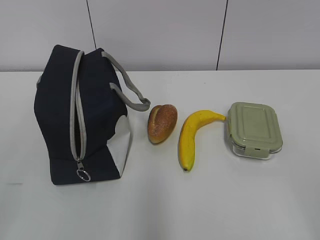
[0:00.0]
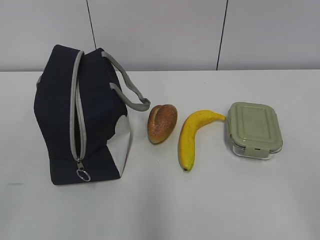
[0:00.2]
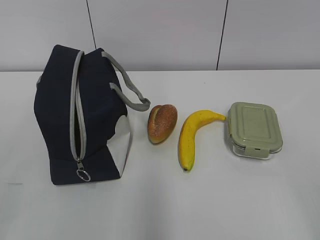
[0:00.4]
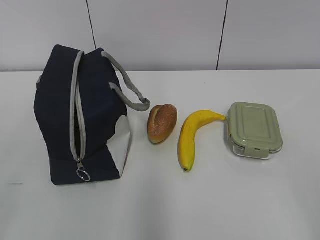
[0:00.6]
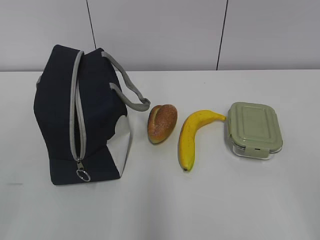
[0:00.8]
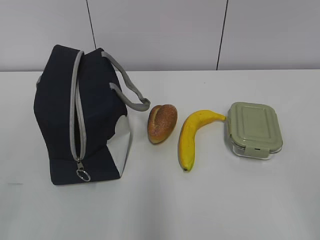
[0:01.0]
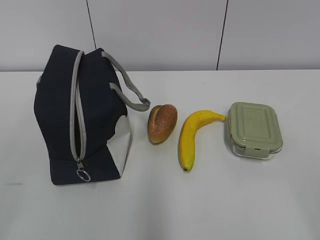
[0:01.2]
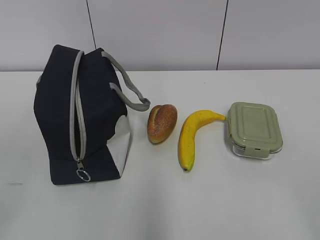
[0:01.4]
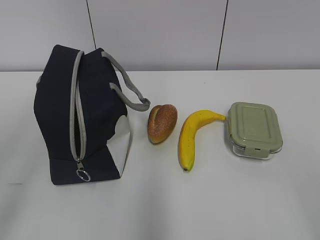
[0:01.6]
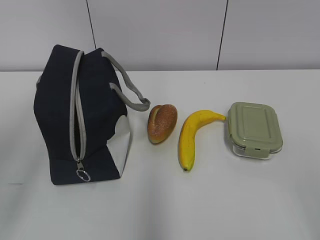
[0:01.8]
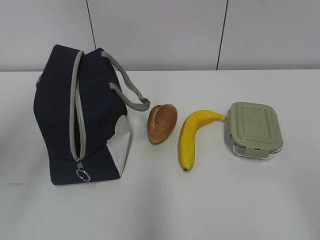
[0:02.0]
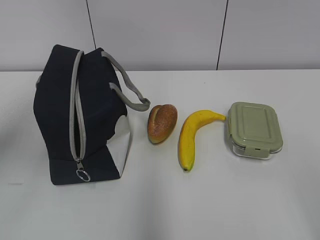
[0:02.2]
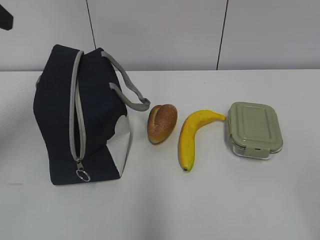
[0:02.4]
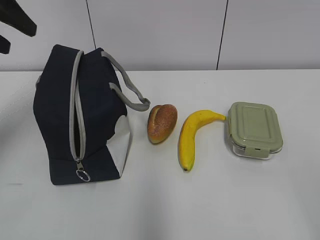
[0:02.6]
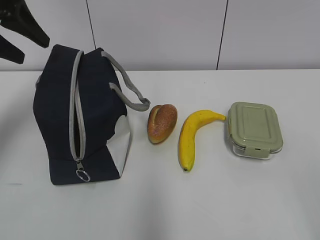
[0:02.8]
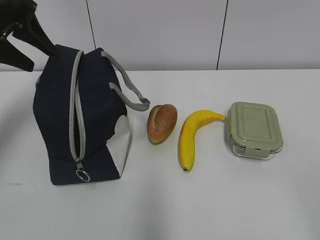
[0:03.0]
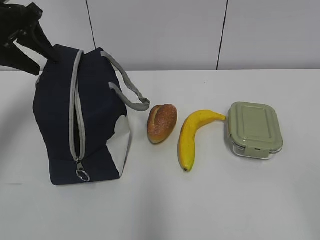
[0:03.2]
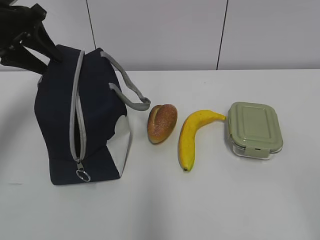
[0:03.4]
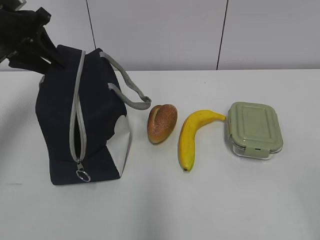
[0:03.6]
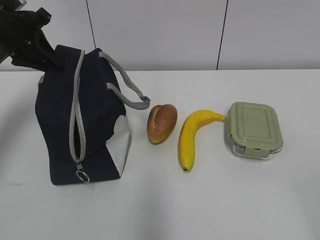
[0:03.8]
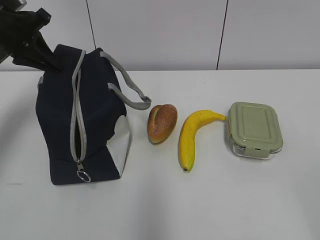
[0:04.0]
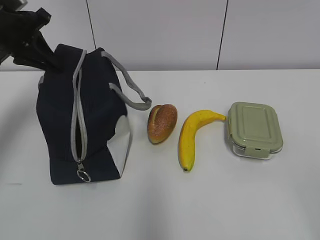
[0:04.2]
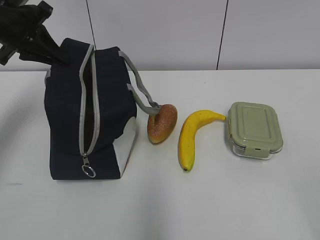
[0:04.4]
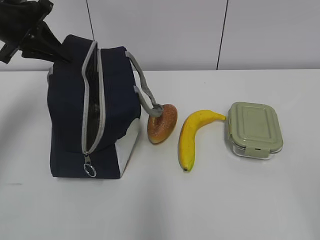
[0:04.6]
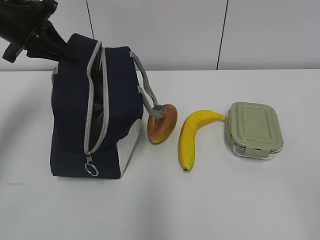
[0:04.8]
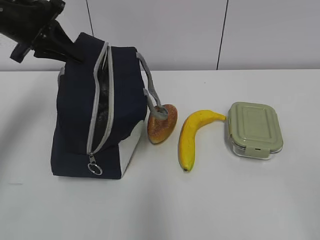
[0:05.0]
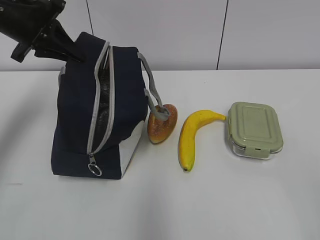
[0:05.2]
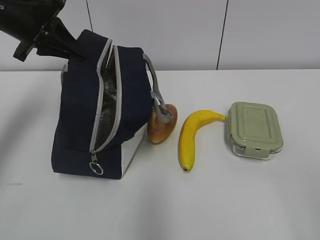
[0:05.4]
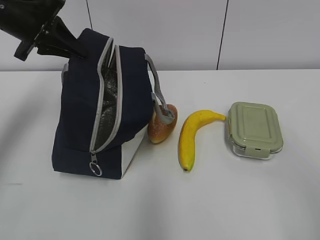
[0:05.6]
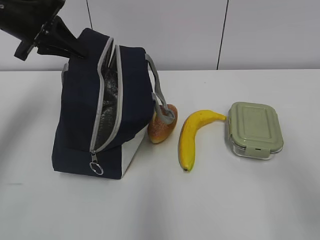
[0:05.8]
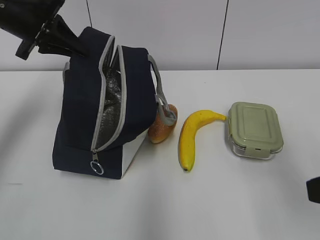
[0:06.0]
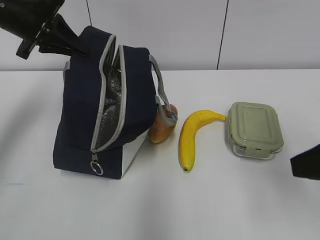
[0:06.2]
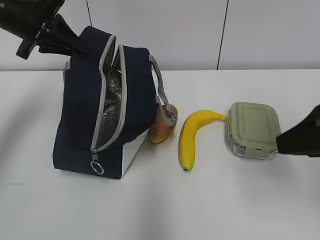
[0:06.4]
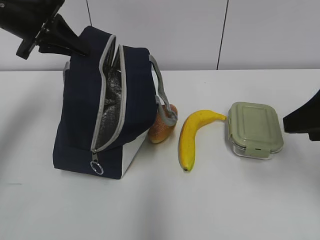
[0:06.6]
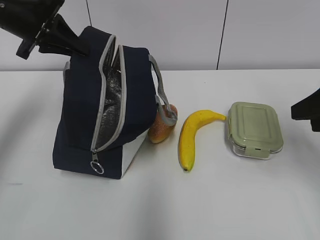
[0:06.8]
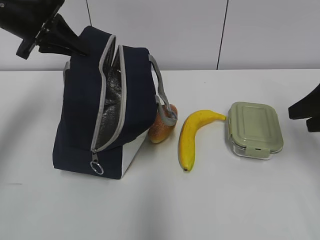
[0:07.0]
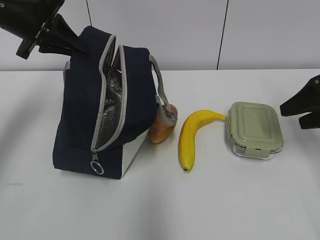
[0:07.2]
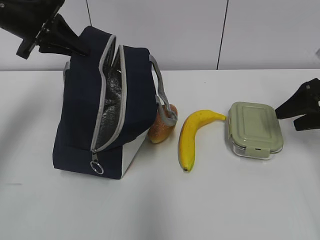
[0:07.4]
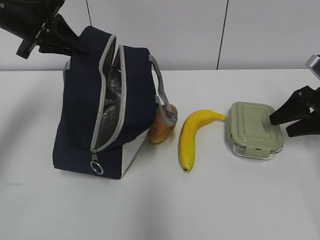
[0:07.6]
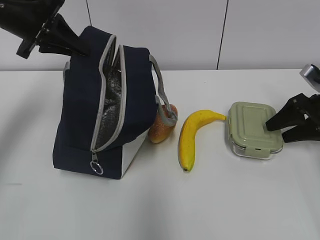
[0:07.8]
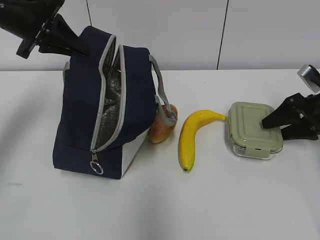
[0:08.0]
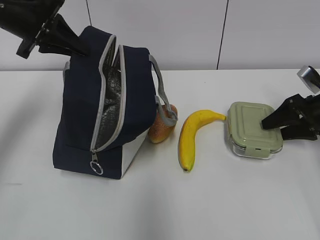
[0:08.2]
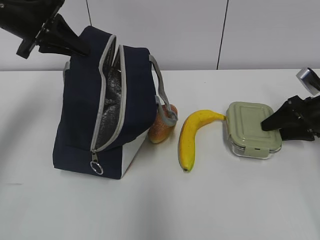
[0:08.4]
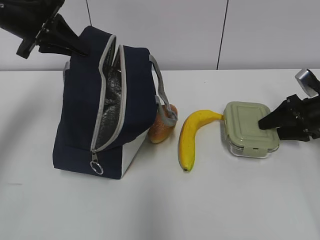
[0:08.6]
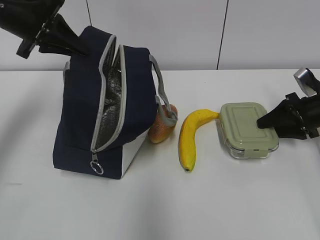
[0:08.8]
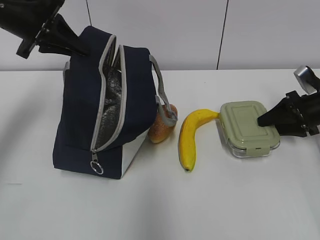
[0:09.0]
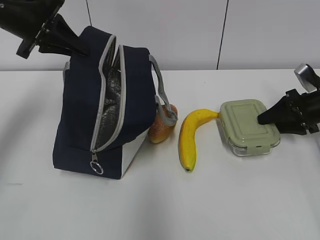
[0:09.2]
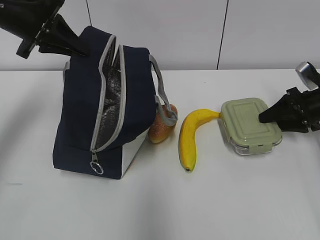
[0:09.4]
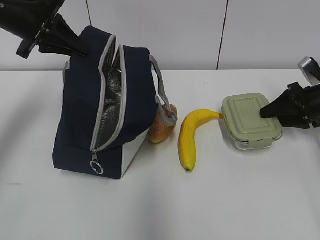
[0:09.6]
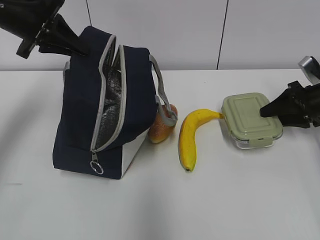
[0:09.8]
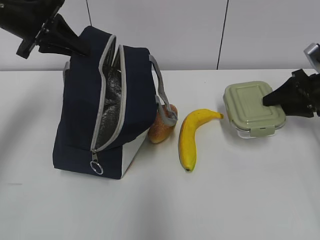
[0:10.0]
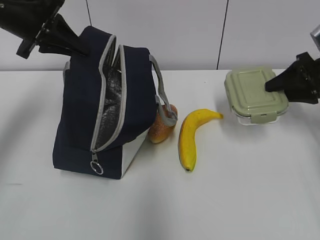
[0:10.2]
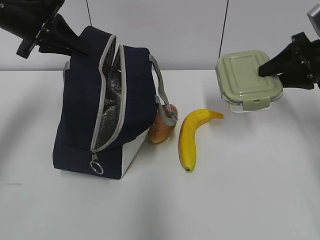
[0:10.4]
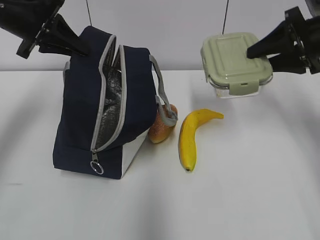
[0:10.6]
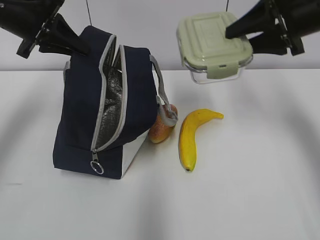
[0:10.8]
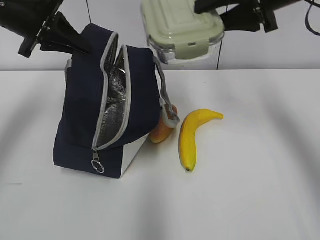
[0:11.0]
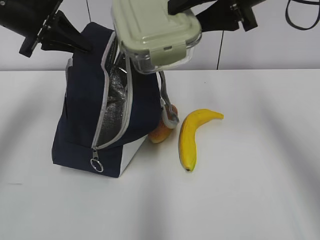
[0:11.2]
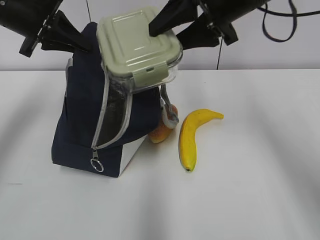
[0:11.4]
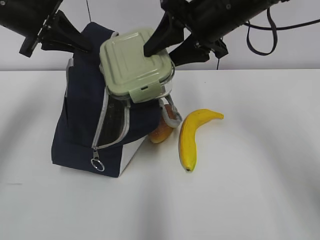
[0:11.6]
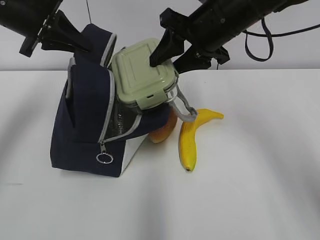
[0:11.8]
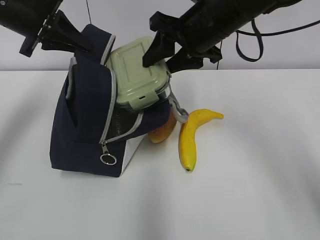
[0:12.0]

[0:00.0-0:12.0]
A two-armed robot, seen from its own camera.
0:01.6 to 0:03.0: The left gripper heads forward, covering some 35 cm.
0:03.0 to 0:04.4: The left gripper closes.
0:04.4 to 0:06.0: The right gripper moves forward, approximately 15 cm.
0:06.0 to 0:07.6: The right gripper travels forward, downward and to the right by some 30 cm.
0:07.6 to 0:09.0: There are only small adjustments of the grippers.
0:09.0 to 0:10.4: The right gripper shifts roughly 10 cm upward.
0:10.4 to 0:12.0: The right gripper is displaced to the left by roughly 20 cm.

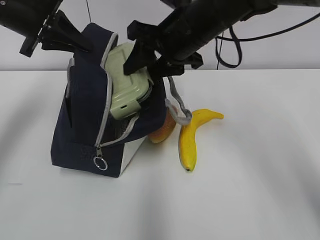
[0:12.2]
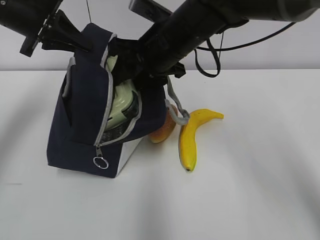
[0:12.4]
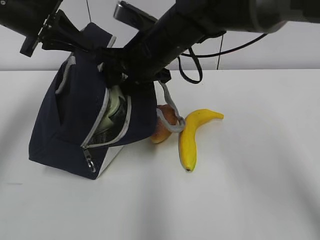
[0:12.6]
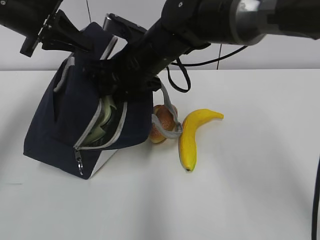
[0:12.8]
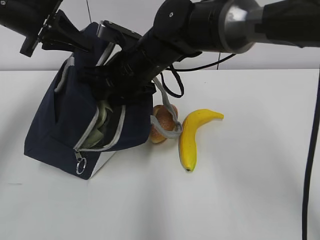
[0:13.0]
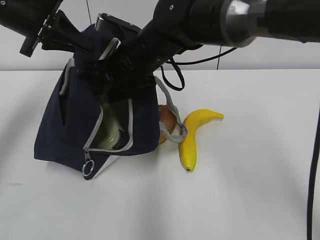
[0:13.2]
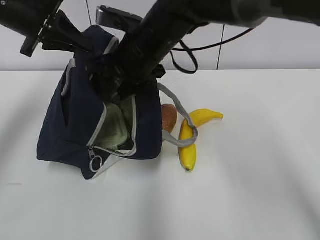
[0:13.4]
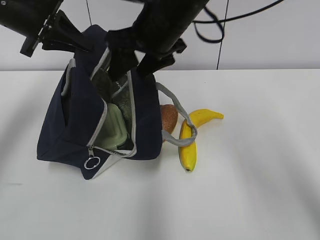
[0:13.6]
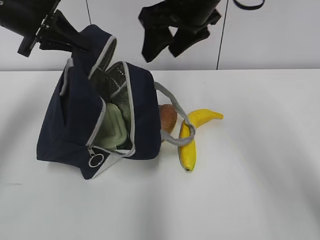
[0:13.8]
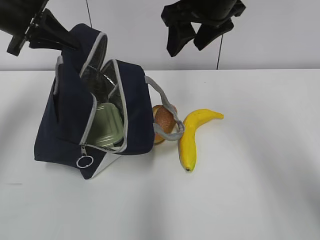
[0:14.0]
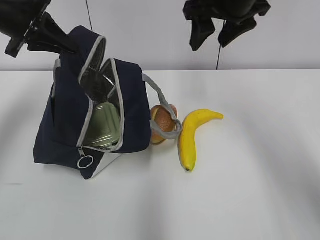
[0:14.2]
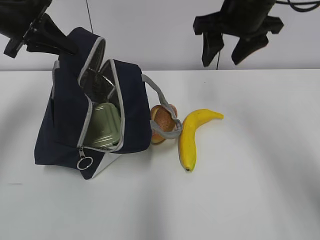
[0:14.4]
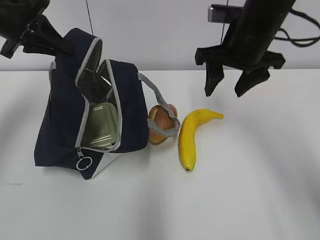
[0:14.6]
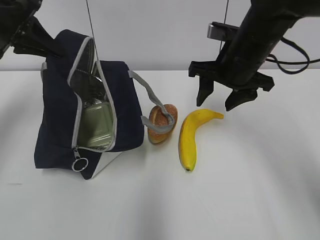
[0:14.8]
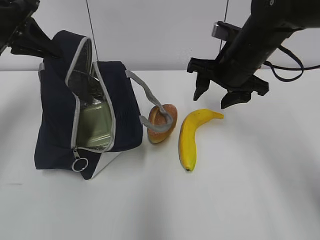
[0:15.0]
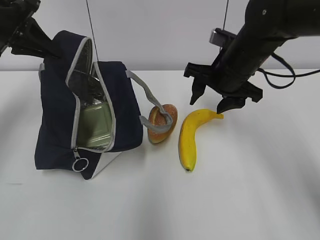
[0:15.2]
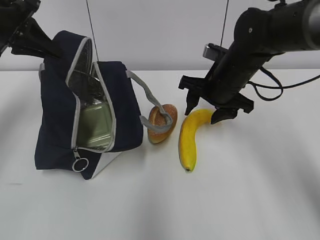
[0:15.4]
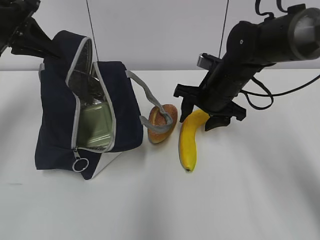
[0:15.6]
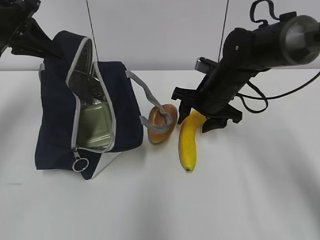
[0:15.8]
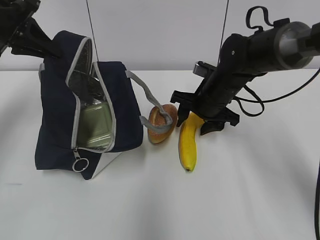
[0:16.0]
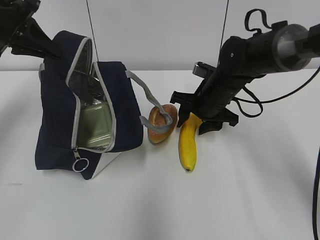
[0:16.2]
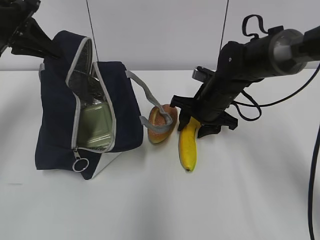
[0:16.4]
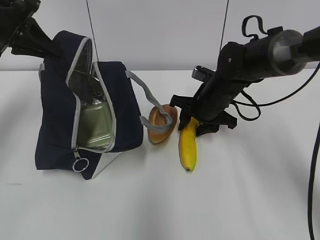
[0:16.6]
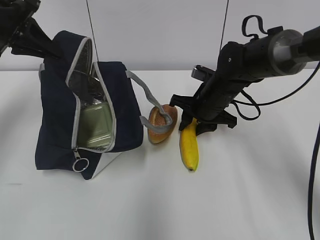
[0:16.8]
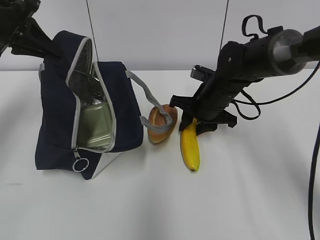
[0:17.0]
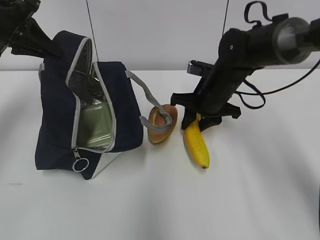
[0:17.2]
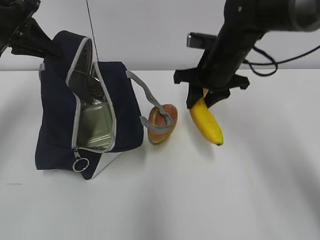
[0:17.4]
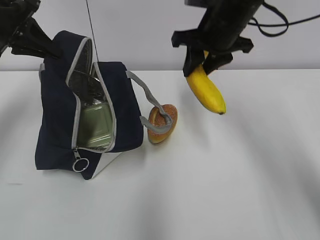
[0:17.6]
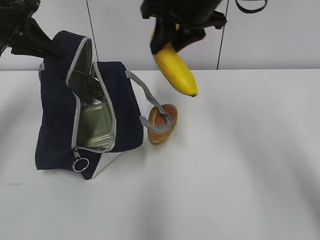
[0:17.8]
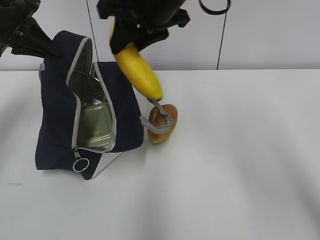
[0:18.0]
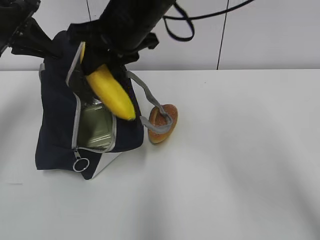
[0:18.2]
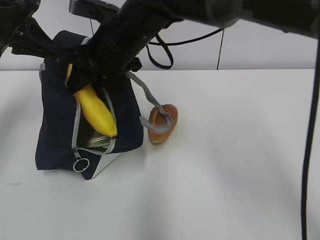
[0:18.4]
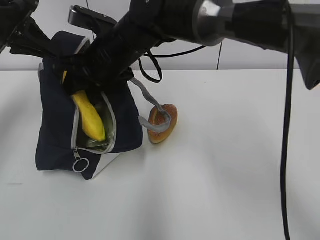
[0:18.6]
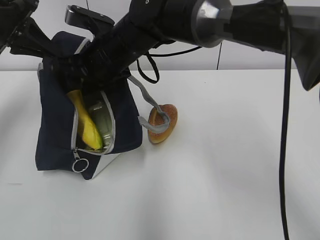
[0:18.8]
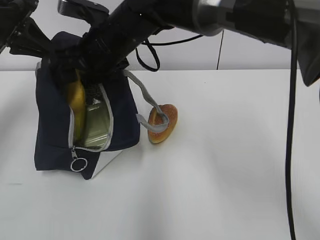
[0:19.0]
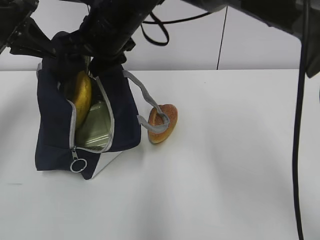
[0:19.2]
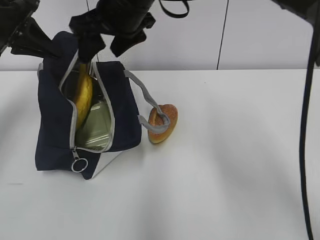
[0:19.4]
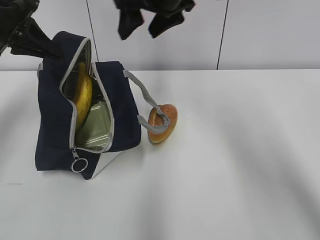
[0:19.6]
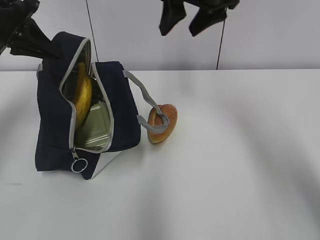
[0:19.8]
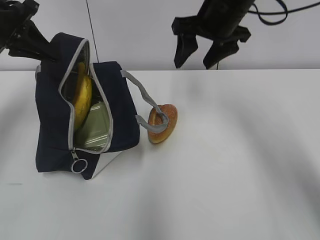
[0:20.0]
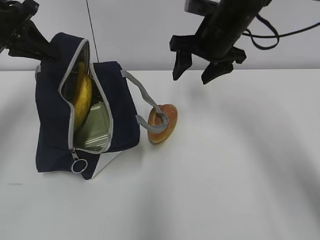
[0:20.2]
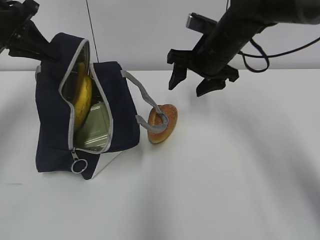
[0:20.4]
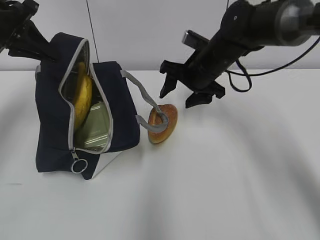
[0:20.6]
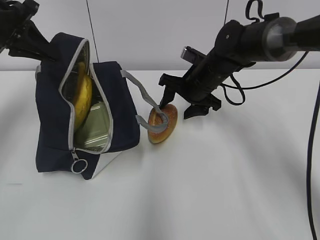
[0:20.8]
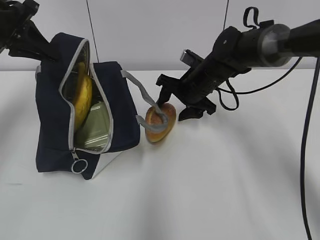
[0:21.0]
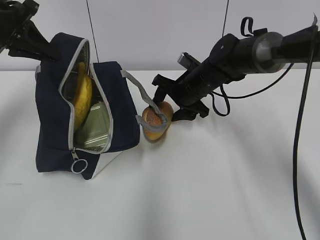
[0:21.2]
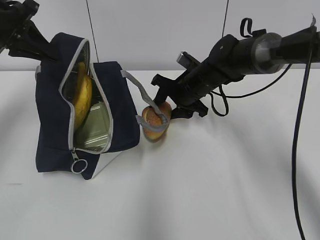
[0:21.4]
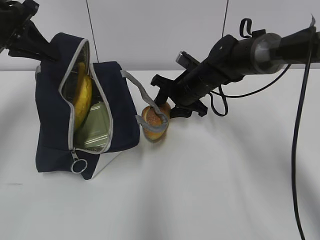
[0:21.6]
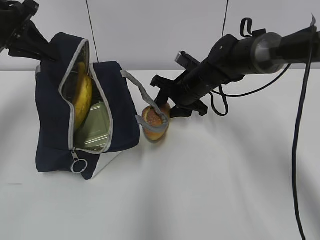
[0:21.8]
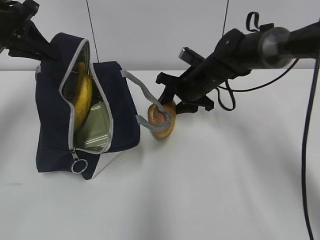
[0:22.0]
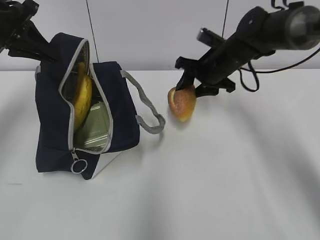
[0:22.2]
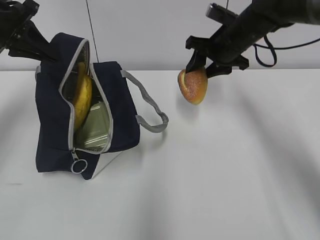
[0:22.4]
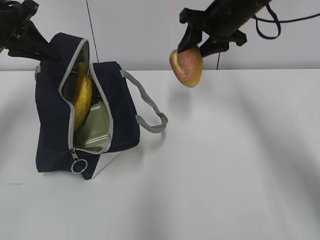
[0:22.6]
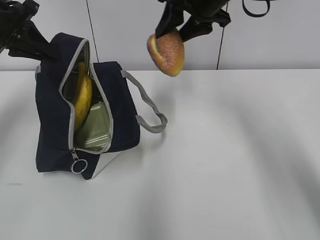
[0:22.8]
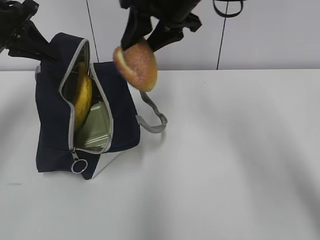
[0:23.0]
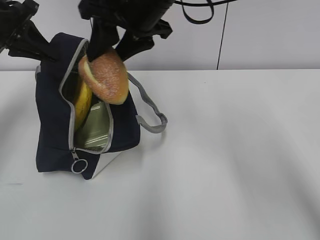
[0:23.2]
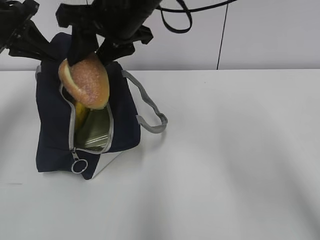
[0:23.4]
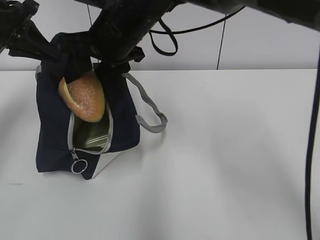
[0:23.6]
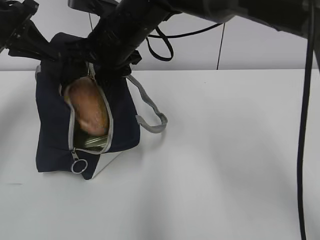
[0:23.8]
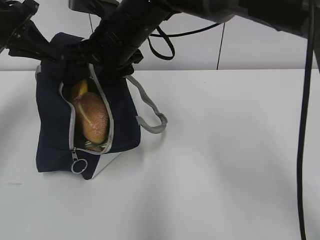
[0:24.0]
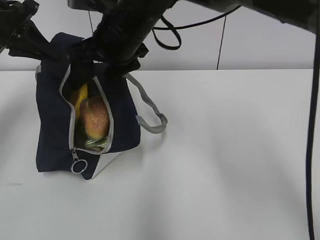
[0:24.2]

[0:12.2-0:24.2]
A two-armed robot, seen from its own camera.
0:12.2 to 0:13.8: The right gripper is displaced upward by some 5 cm.
0:13.8 to 0:15.2: The right gripper is displaced downward and to the right by some 15 cm.
0:15.2 to 0:16.6: The right gripper goes some 10 cm downward.
0:16.6 to 0:18.2: The right gripper goes approximately 20 cm upward and to the left.
0:18.2 to 0:19.8: The right gripper goes some 15 cm to the right, and opens.
0:19.8 to 0:21.2: The right gripper moves downward, approximately 20 cm.
0:21.2 to 0:22.6: The right gripper shifts some 15 cm upward.
0:22.6 to 0:24.2: The right gripper heads to the left and backward, covering roughly 20 cm.
